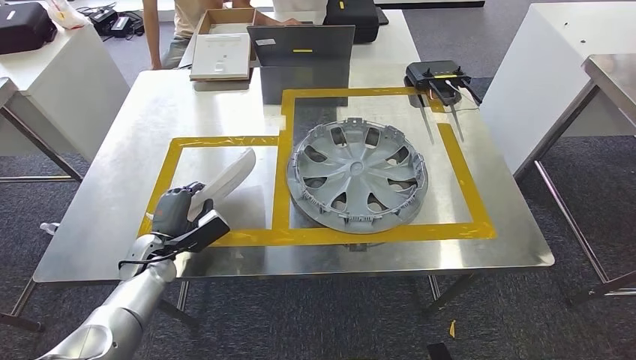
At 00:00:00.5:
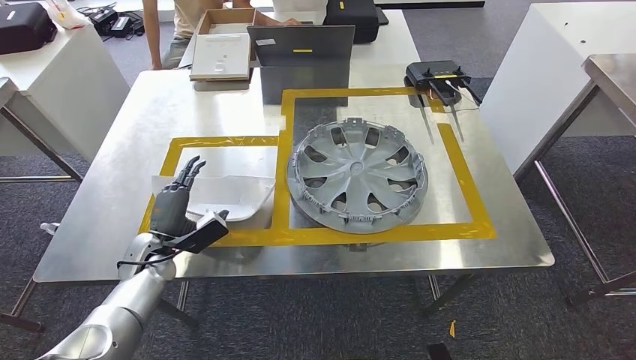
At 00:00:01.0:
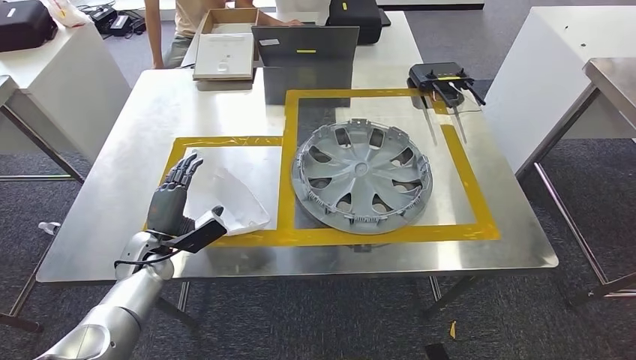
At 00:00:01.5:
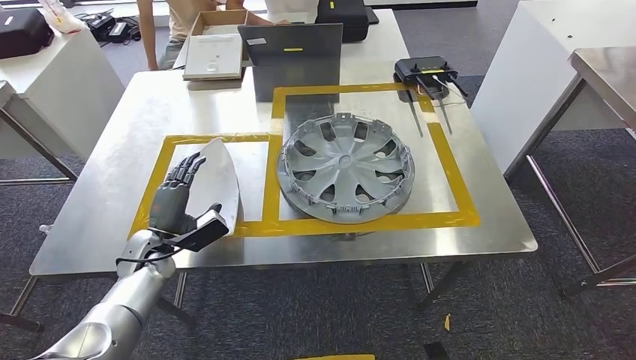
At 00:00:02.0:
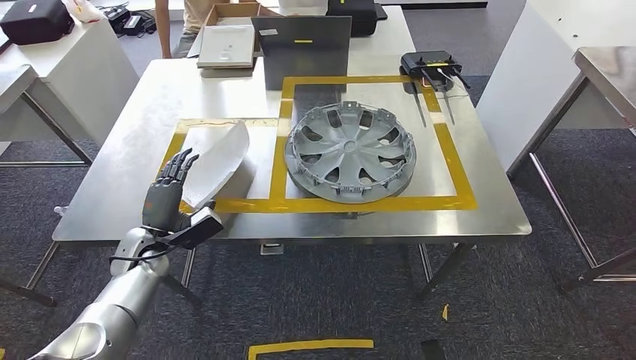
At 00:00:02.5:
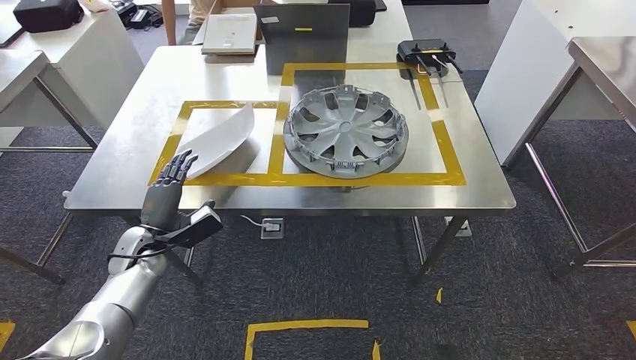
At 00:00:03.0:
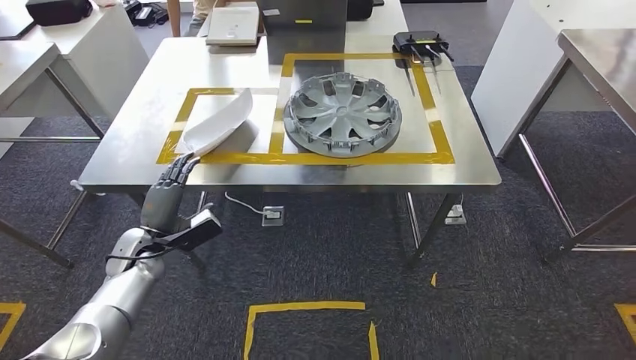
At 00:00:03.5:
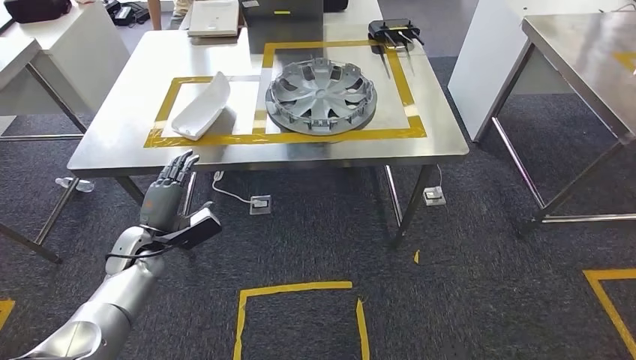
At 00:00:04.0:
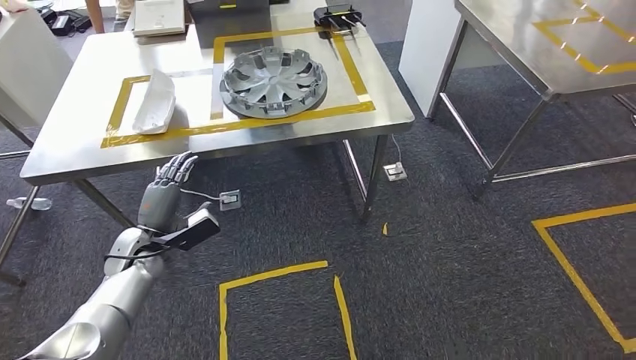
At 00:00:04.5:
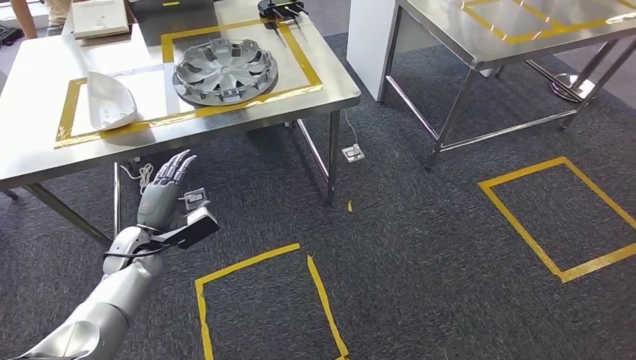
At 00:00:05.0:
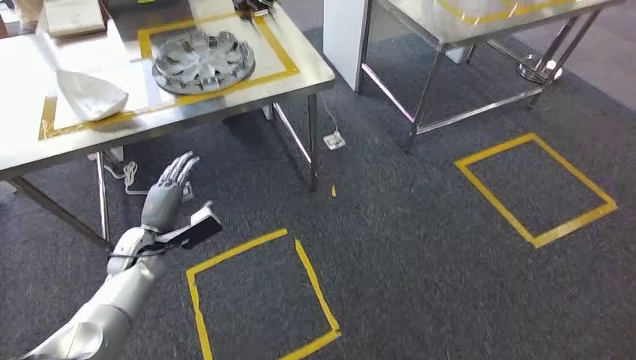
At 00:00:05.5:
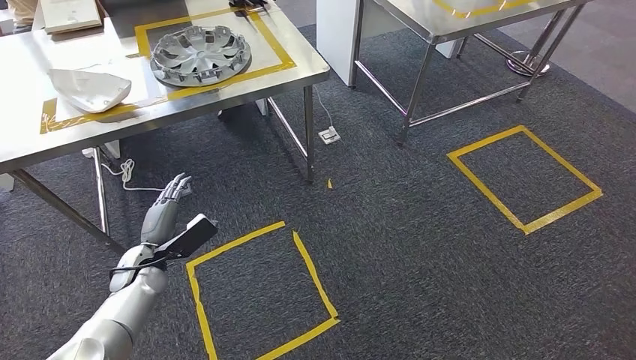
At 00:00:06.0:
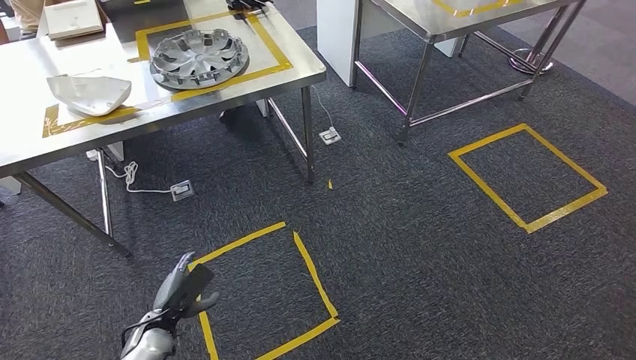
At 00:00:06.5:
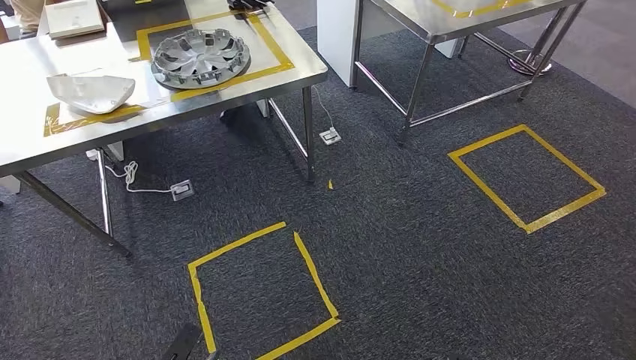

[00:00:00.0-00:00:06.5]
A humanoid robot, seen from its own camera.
Step, 00:00:01.5 to 00:00:06.0: Move to the initial position of the workbench.

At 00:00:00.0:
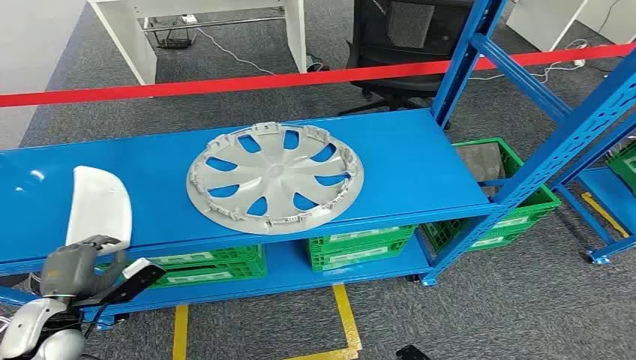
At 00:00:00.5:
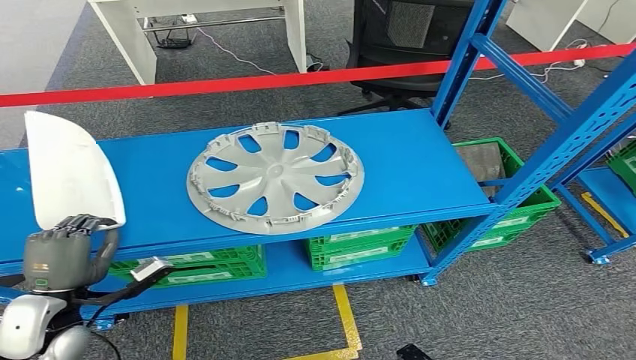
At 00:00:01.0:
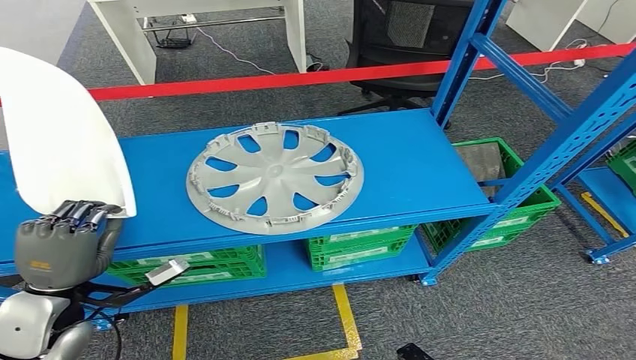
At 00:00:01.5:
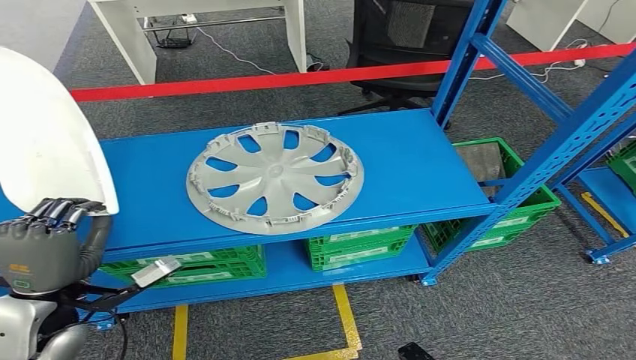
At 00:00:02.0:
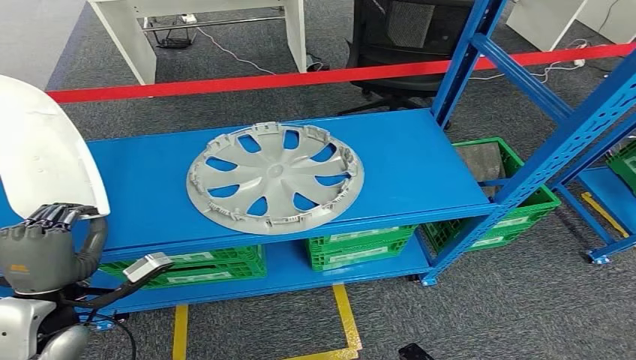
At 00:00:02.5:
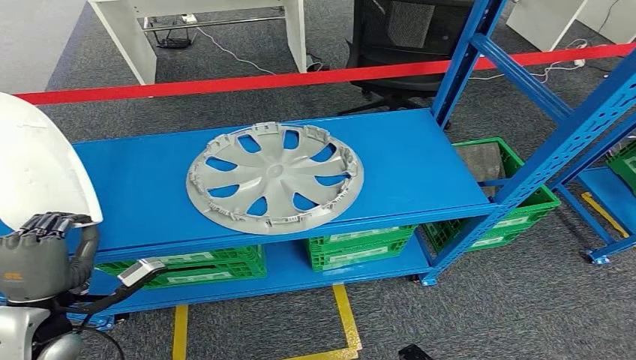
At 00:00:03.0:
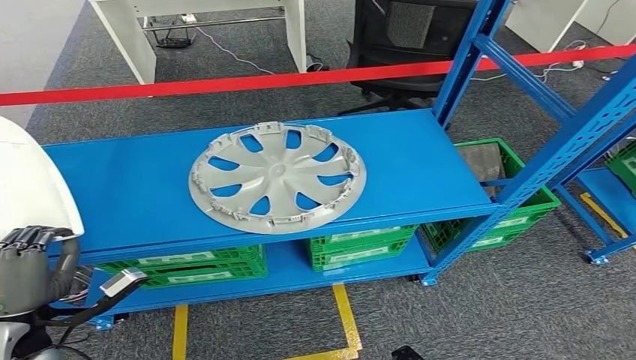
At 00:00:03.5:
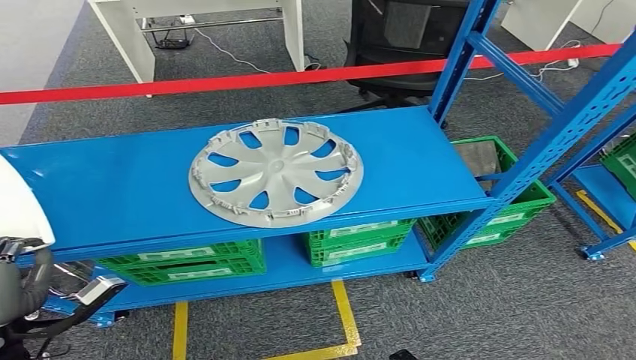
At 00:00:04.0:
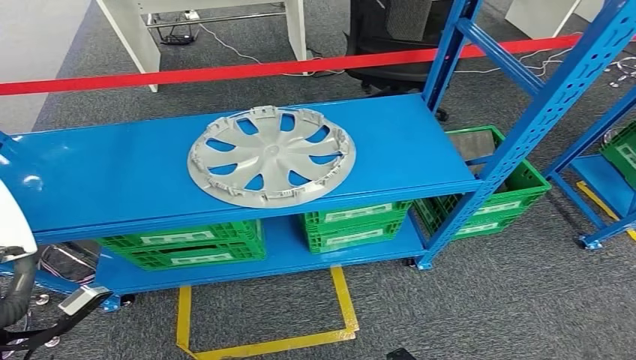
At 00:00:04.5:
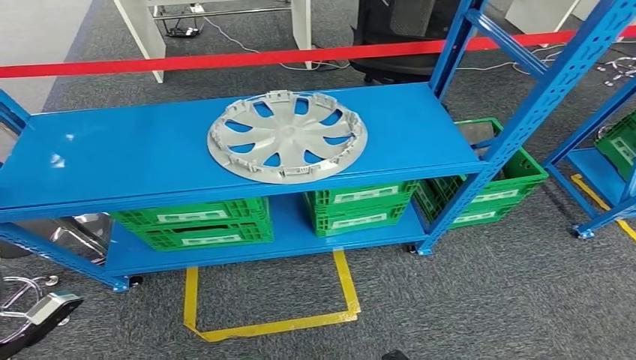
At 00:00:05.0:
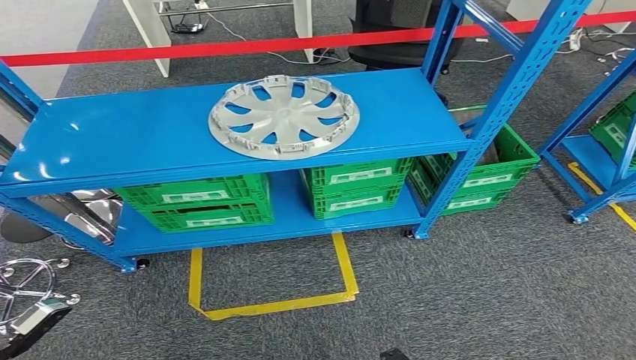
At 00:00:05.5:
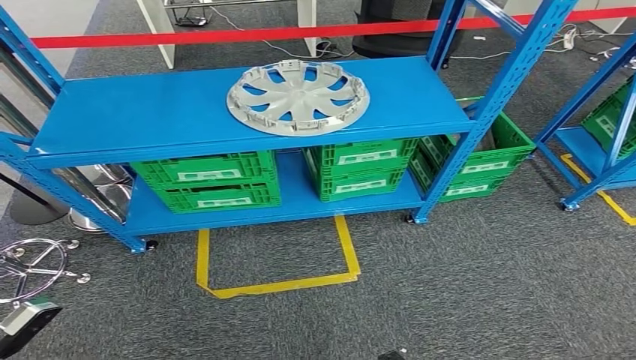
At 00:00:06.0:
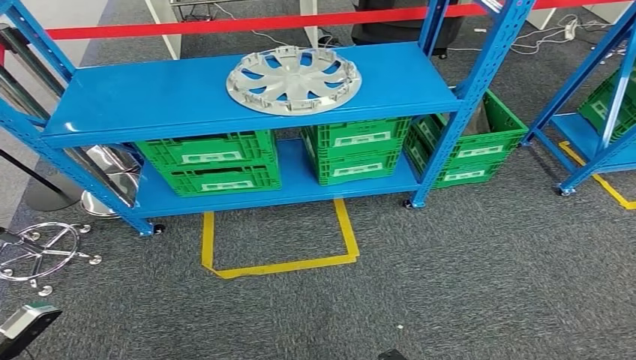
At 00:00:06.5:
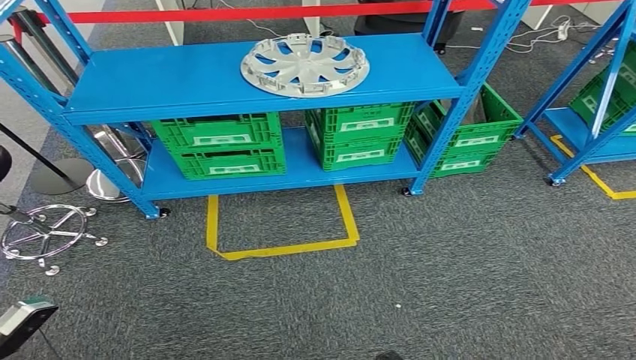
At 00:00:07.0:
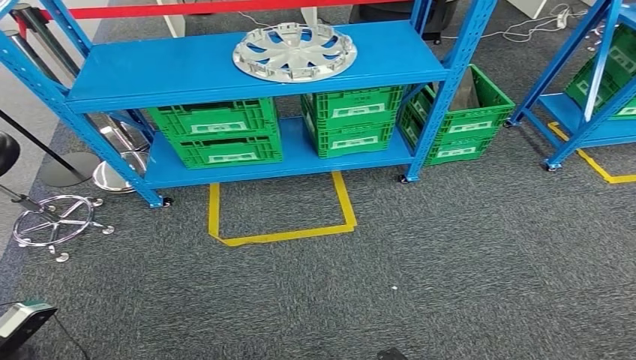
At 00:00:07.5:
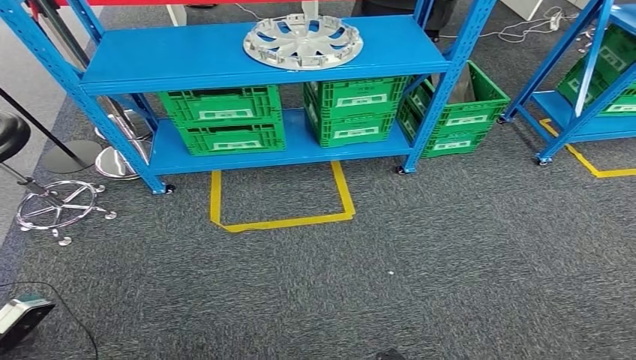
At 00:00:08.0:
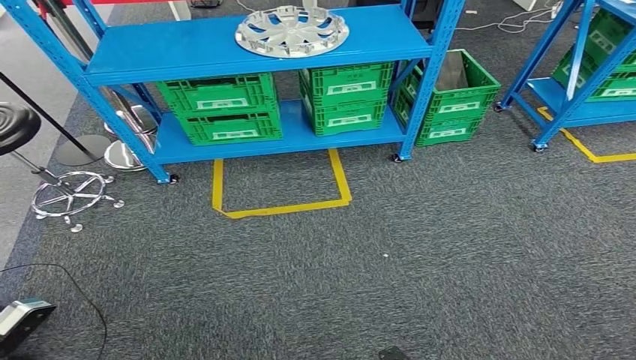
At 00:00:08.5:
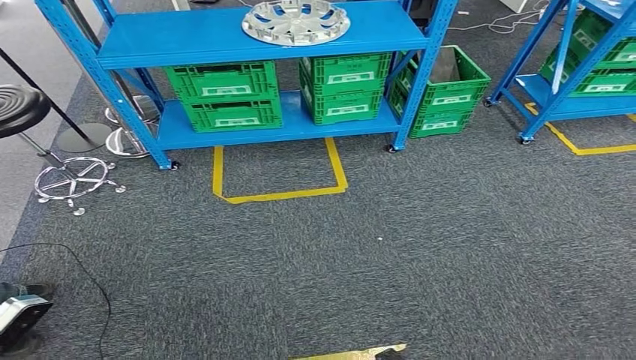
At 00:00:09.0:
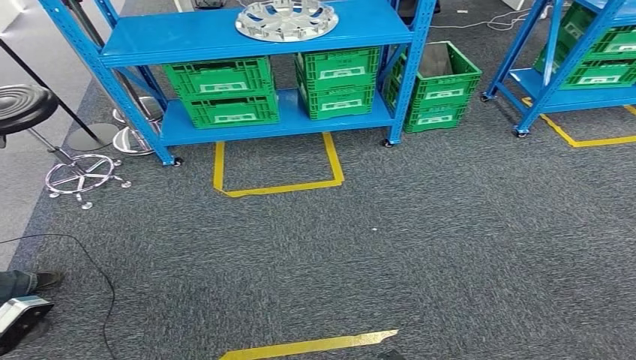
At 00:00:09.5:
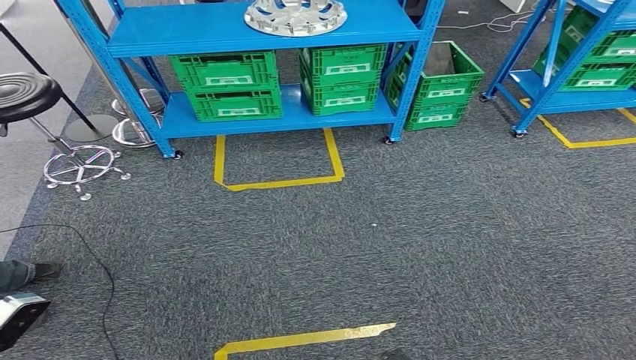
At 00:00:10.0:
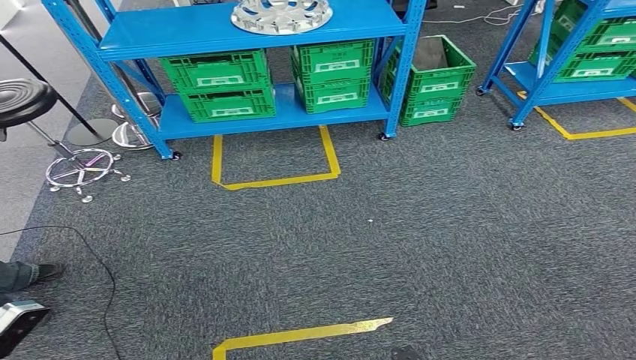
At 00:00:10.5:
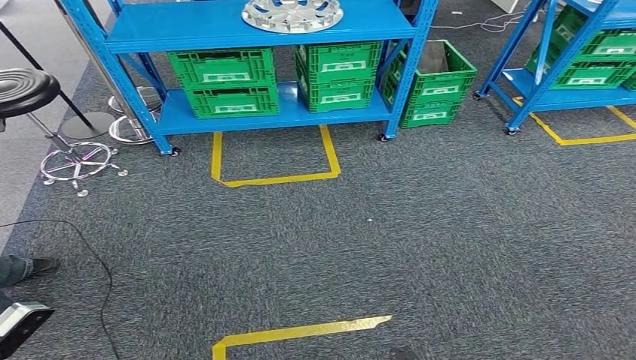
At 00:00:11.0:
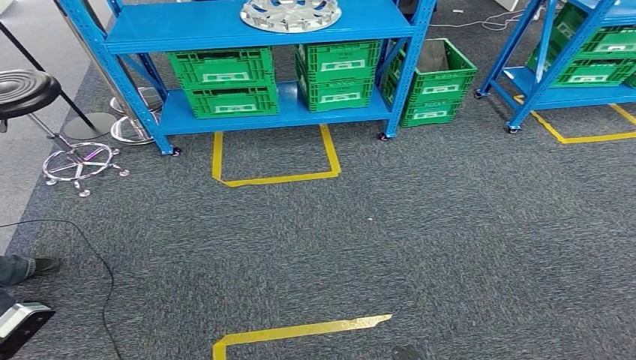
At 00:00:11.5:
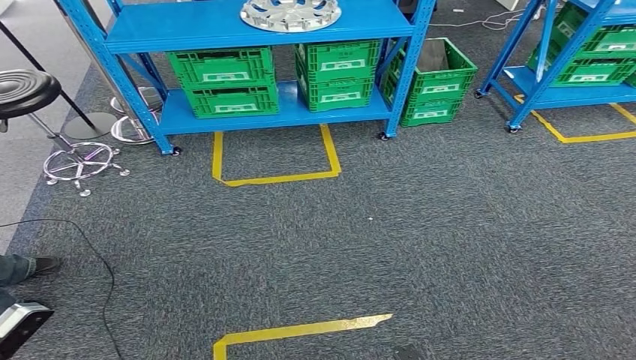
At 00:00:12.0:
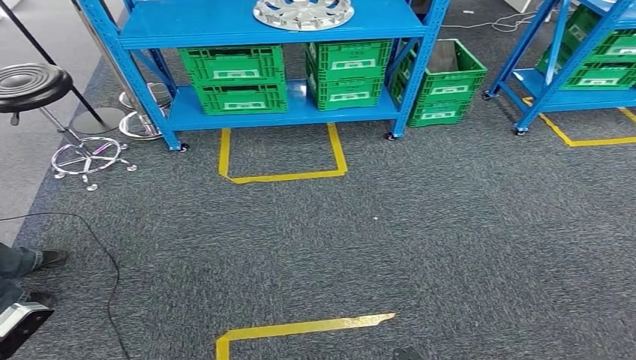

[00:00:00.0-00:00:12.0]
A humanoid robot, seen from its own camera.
Step, 00:00:00.0 to 00:00:01.0: Take small components from the rack.

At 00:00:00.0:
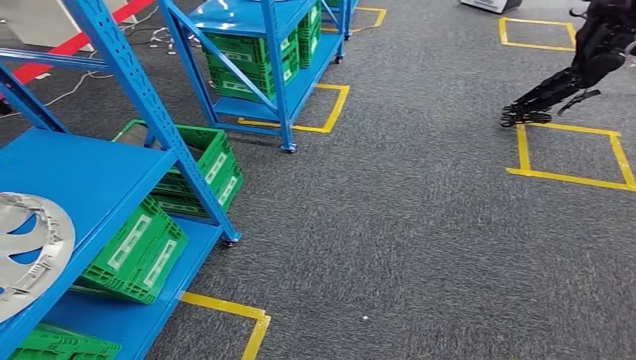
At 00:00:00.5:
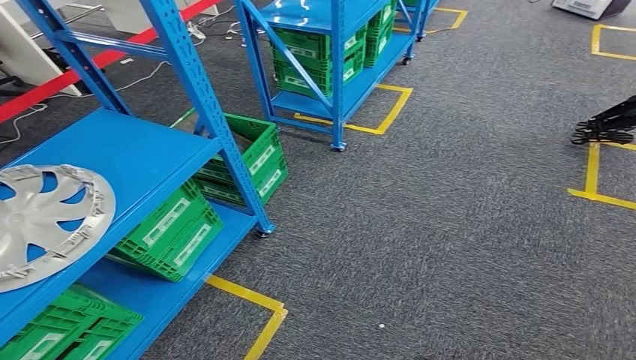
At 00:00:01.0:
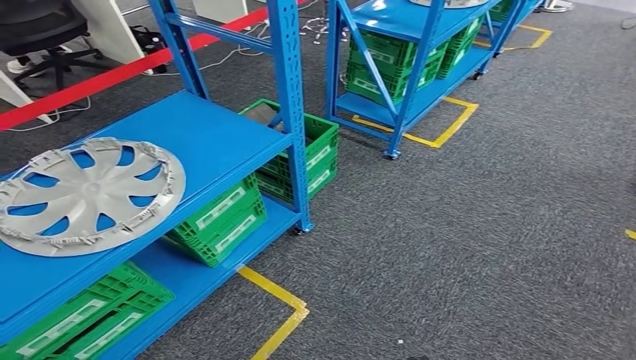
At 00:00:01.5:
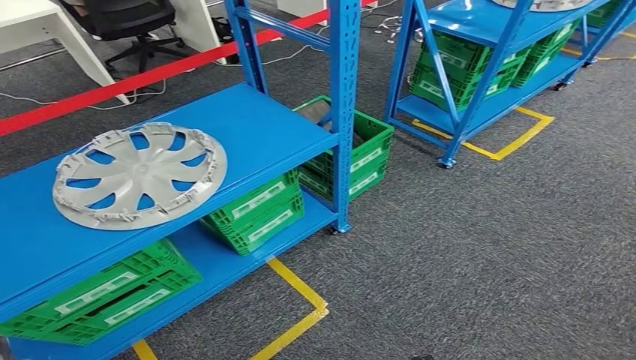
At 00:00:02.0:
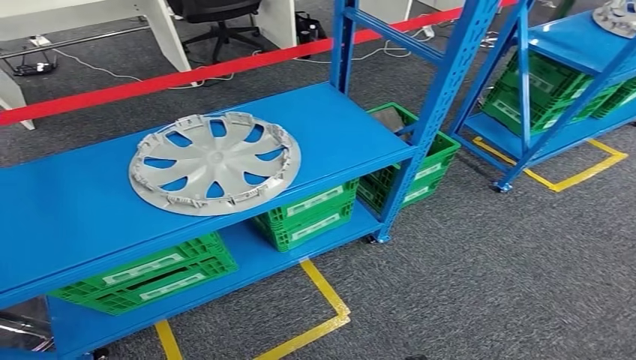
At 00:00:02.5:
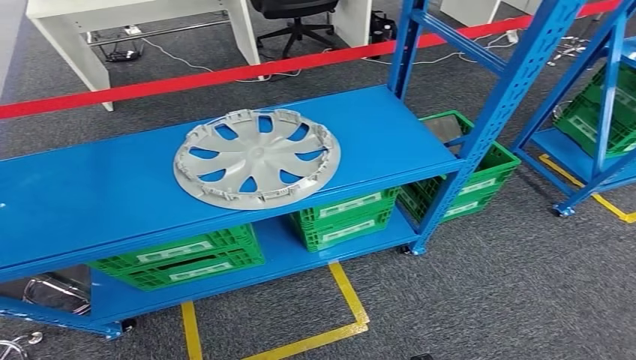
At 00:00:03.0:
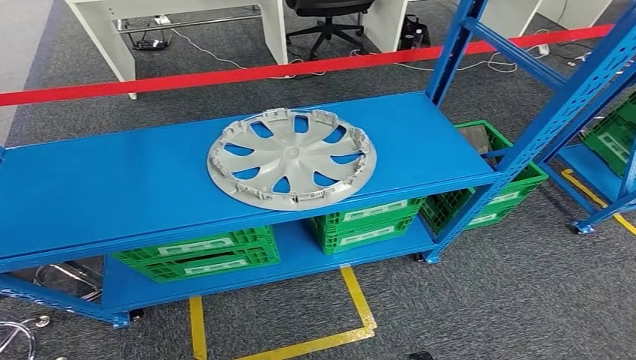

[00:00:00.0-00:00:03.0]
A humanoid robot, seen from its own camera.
Step, 00:00:00.0 to 00:00:03.0: Move to the initial position of the workbench.
